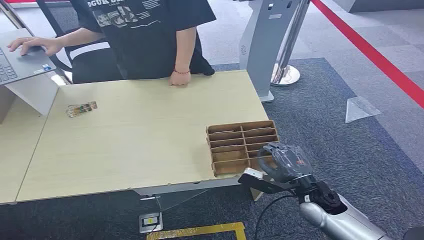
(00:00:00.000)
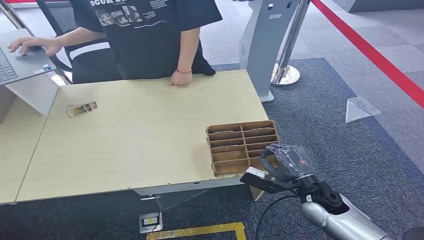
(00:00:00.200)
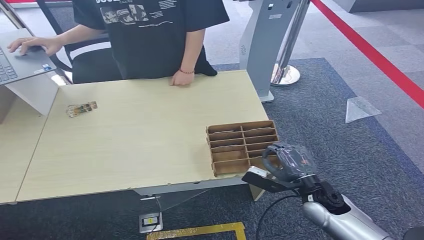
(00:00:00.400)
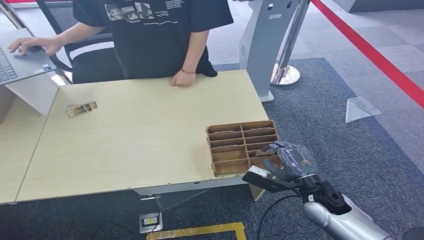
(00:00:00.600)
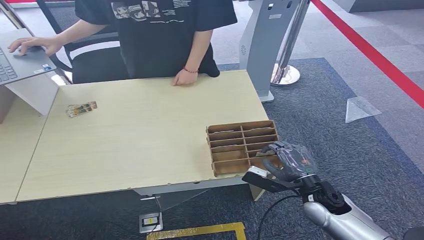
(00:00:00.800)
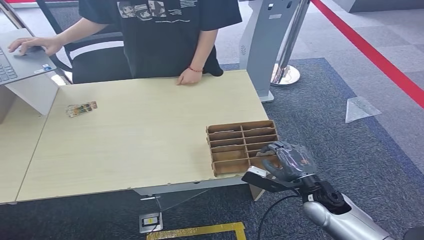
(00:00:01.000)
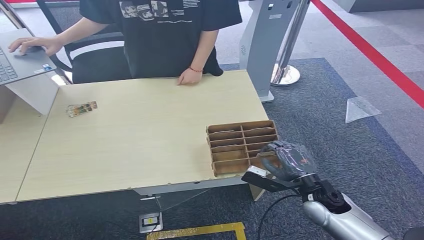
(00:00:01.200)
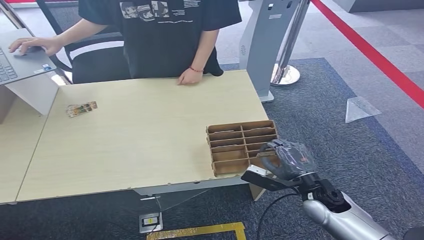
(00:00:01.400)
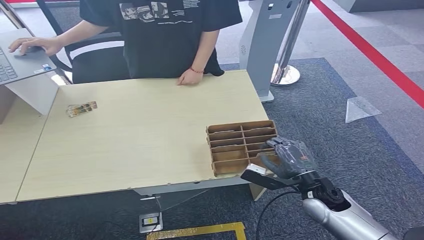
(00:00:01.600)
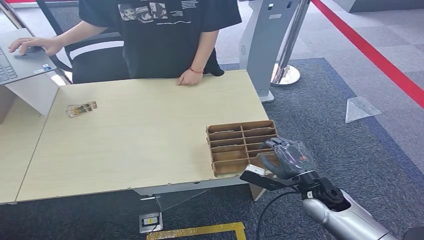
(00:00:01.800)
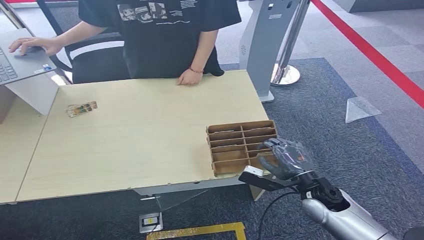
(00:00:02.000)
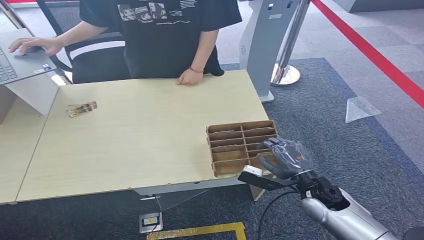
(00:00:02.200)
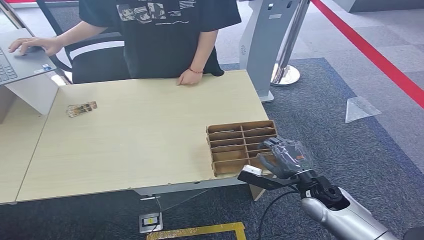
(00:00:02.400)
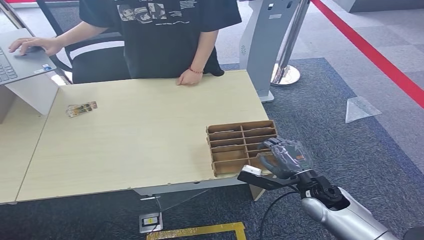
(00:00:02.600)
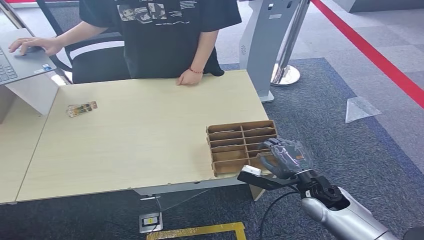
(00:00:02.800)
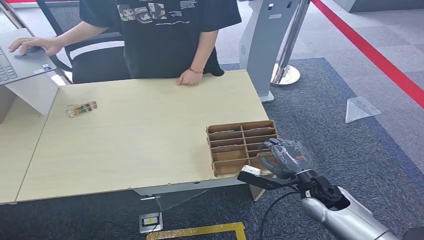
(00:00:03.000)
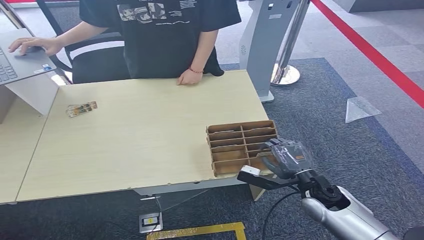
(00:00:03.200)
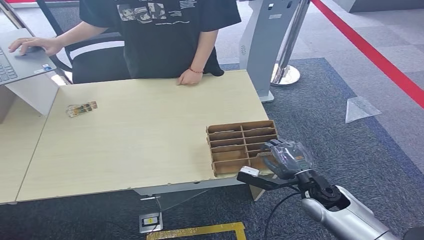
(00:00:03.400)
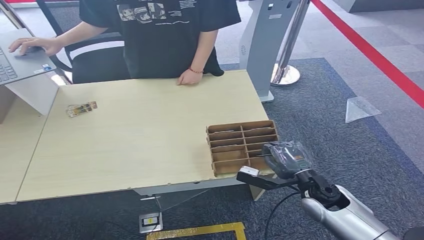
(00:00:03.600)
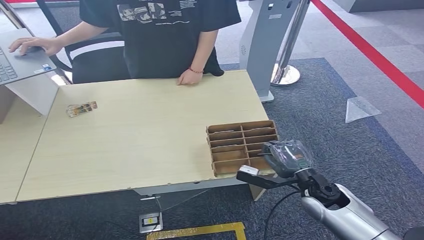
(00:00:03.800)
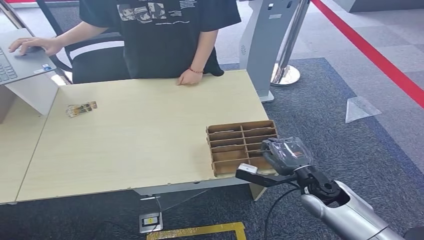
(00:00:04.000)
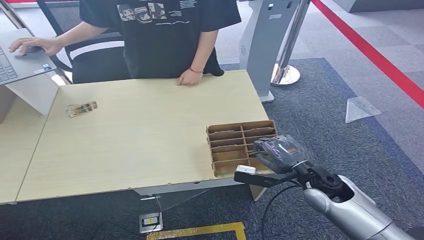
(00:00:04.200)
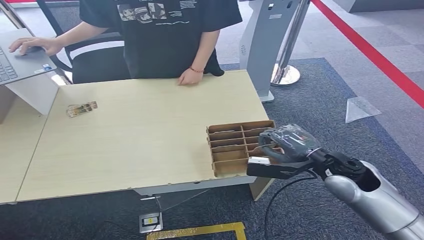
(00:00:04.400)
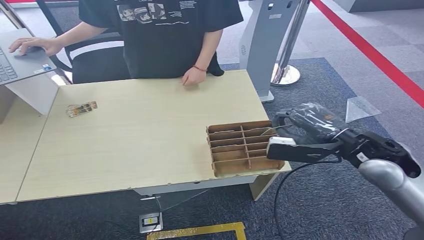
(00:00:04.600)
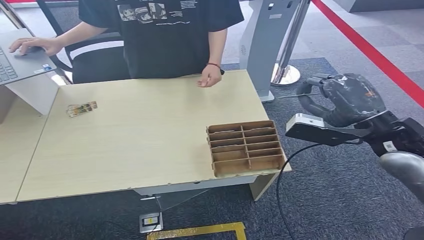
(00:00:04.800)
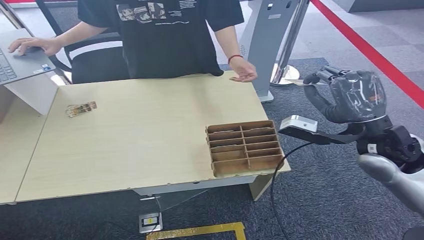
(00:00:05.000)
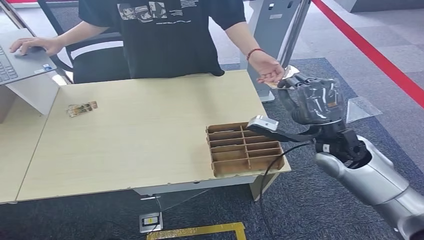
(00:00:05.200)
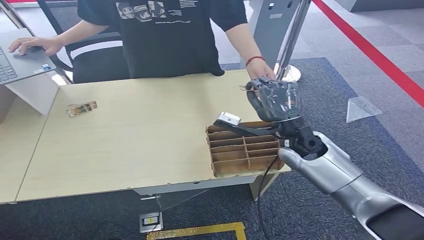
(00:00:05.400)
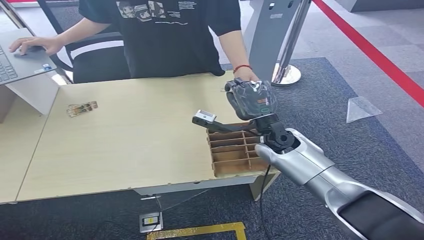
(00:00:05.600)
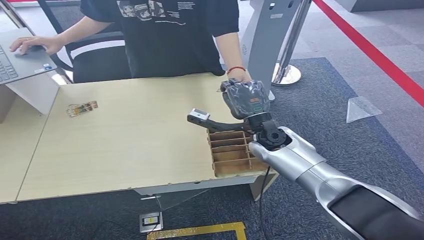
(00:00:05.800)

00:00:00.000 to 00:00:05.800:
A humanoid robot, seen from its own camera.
Step, 00:00:00.000 to 00:00:04.200: Pick up the room card from the card holder.
Step, 00:00:04.600 to 00:00:05.800: Hand the room card to the target.
00:00:01.400 to 00:00:02.800: There are only small adjustments of the hands.
00:00:02.800 to 00:00:04.400: The right hand is displaced upward by approximately 25 cm.
00:00:04.400 to 00:00:05.800: The right hand heads to the left, forward and downward, covering approximately 25 cm.
